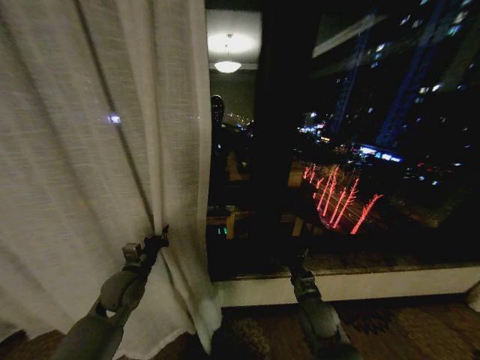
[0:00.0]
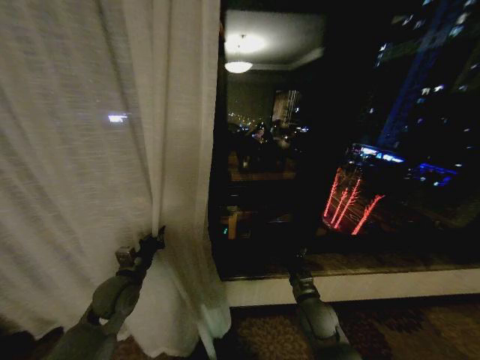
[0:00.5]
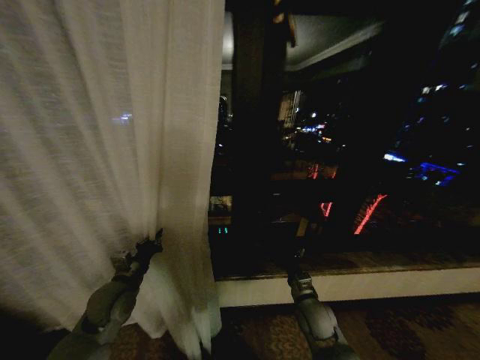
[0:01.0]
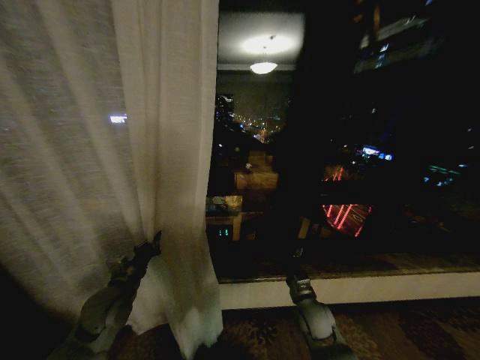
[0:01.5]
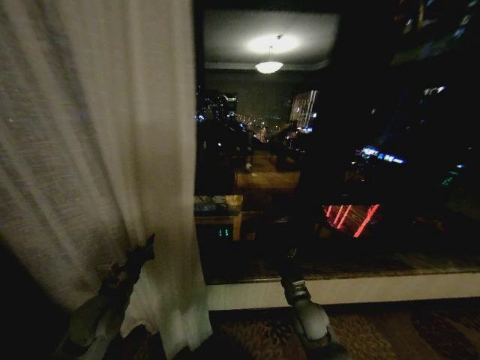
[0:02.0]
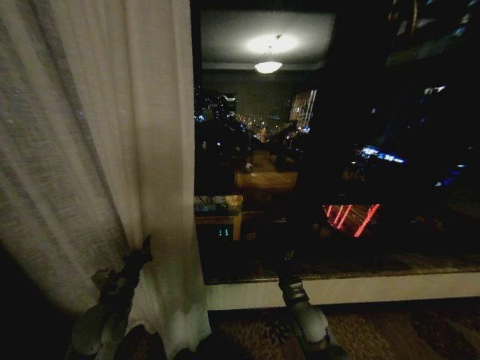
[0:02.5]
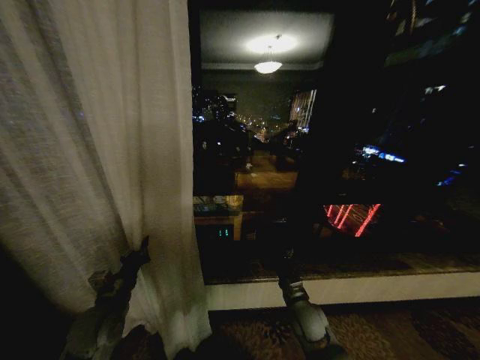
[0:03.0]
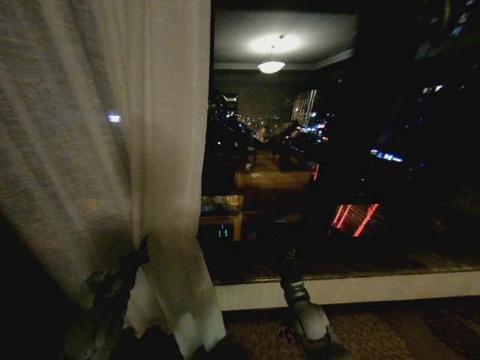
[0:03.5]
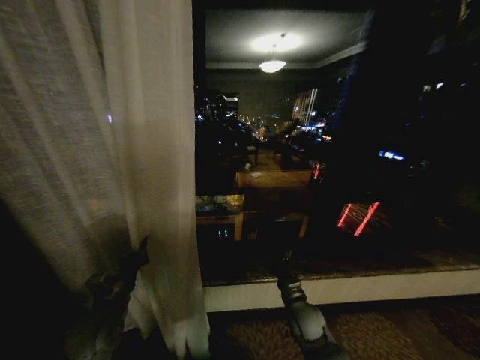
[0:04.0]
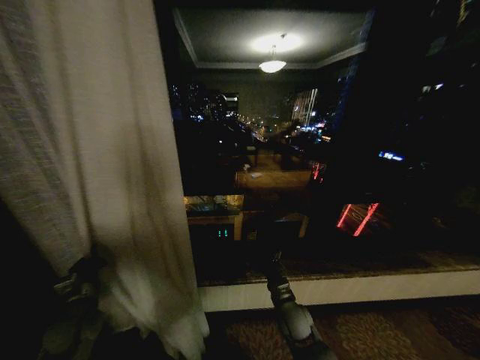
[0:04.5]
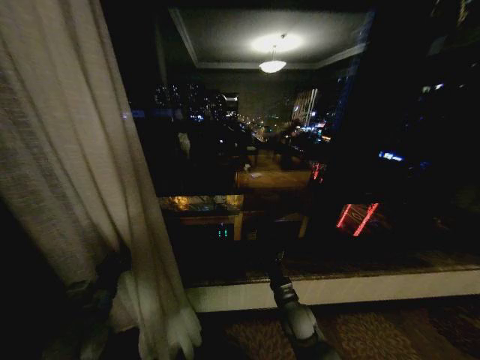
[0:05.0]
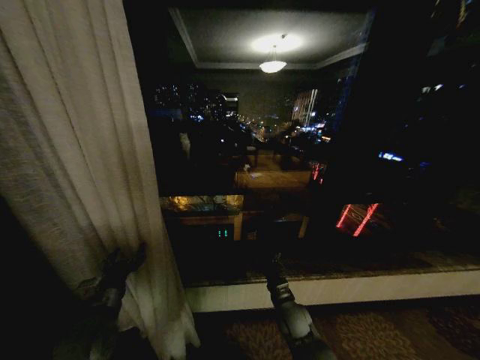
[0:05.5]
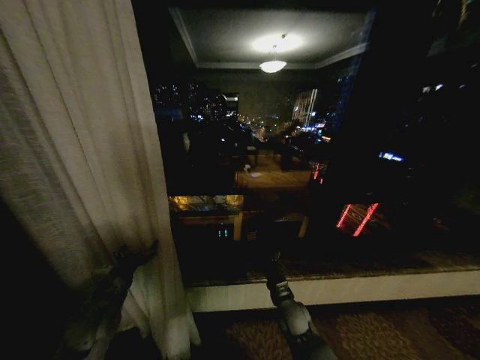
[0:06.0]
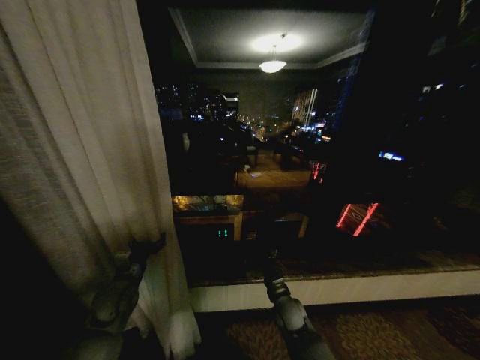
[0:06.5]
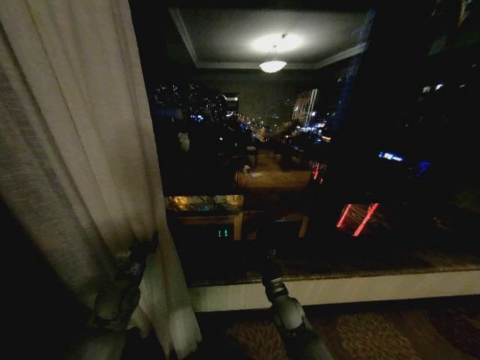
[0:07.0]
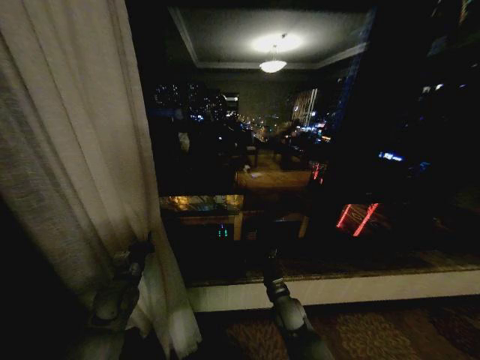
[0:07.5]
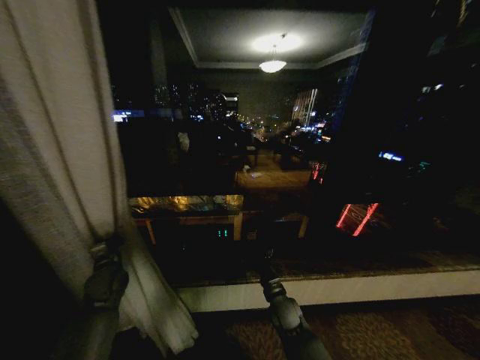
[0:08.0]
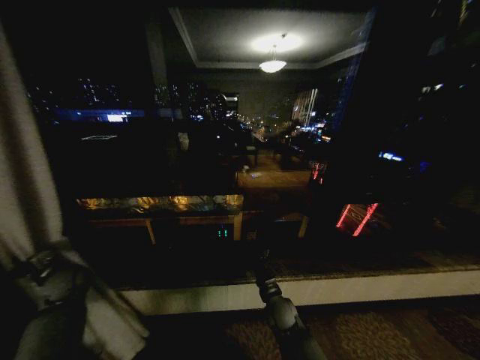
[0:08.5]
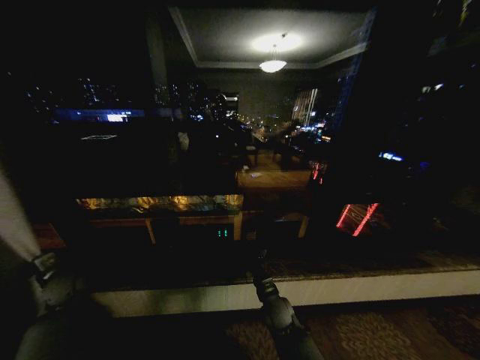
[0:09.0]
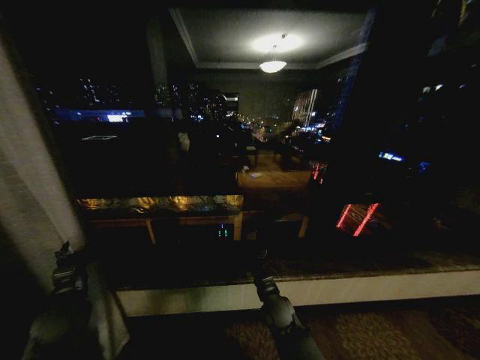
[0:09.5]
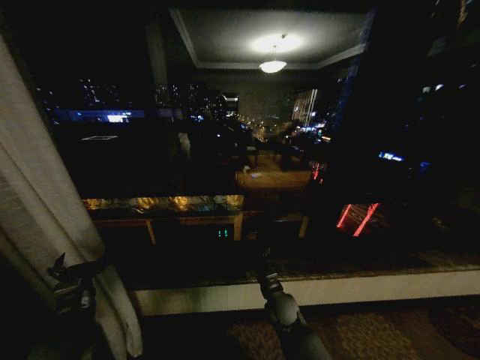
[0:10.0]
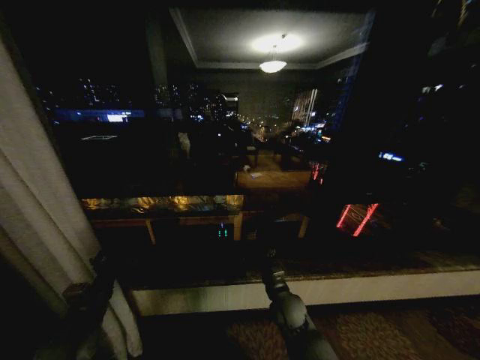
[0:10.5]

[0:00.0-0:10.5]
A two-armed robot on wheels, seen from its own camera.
Task of the whole recording: Open the curtains by pulling them apart, changing their state from closed to fully open.
0:00.0 to 0:02.0: The left gripper moves backward, approximately 5 cm.
0:02.0 to 0:04.0: The grippers make only small movements.
0:04.0 to 0:06.5: The left gripper moves forward, about 5 cm, and opens its fingers.
0:06.5 to 0:08.5: The left gripper goes about 15 cm to the left, and closes.
0:08.5 to 0:10.5: The left gripper goes roughly 20 cm backward and to the right, and opens its fingers.
